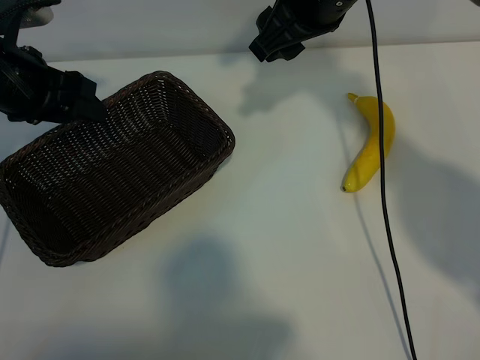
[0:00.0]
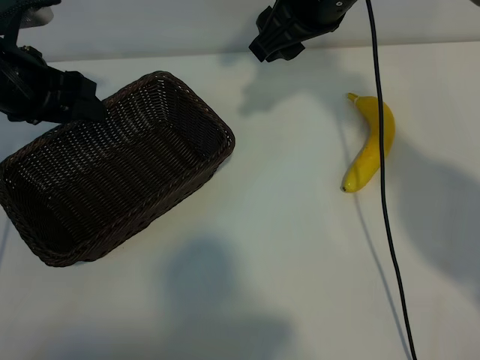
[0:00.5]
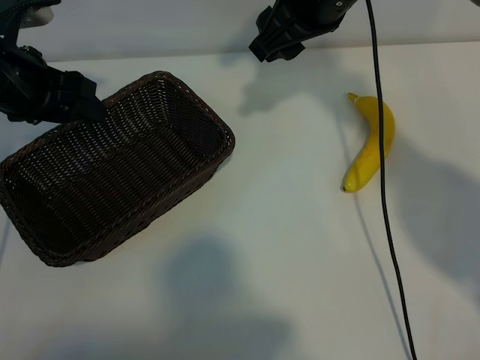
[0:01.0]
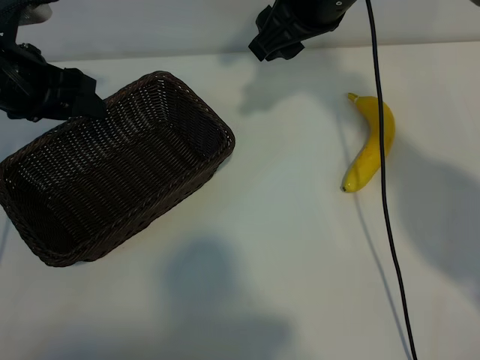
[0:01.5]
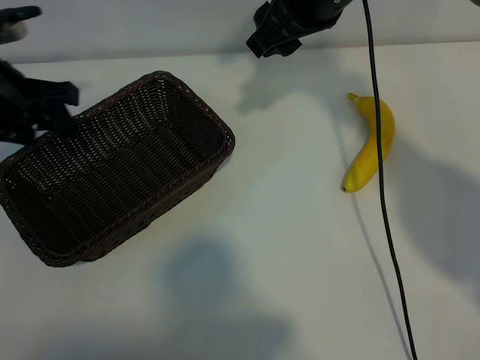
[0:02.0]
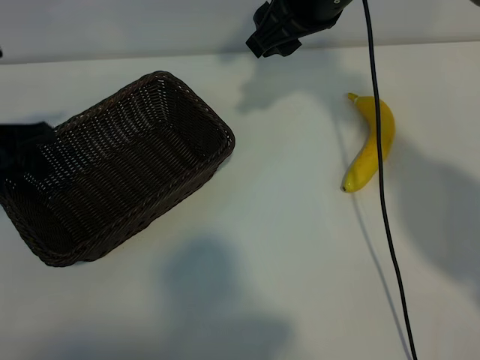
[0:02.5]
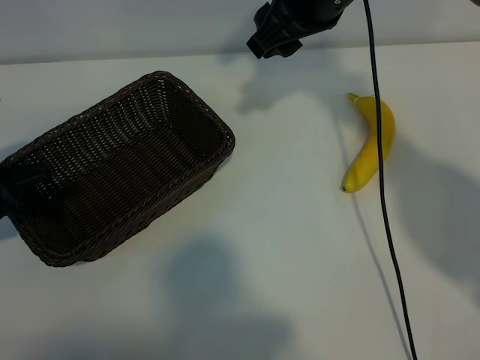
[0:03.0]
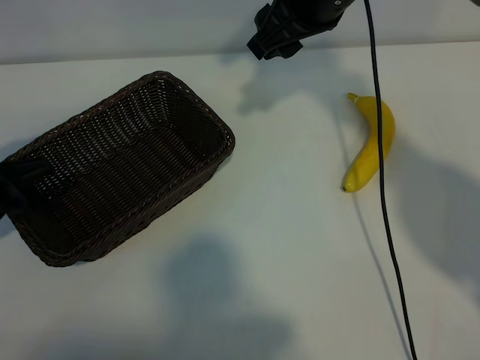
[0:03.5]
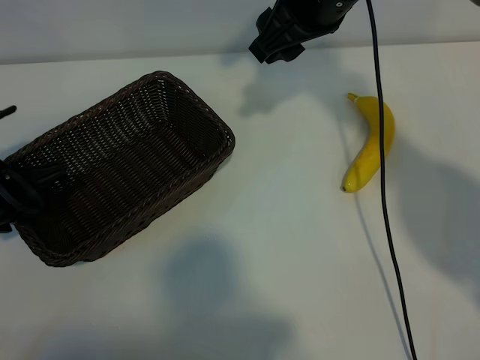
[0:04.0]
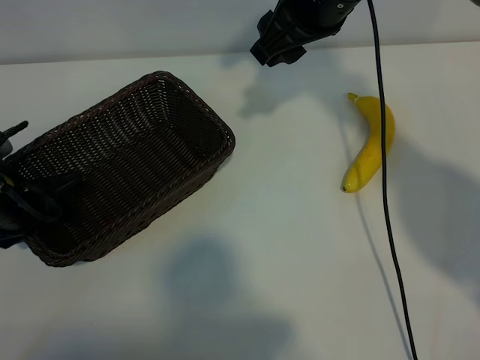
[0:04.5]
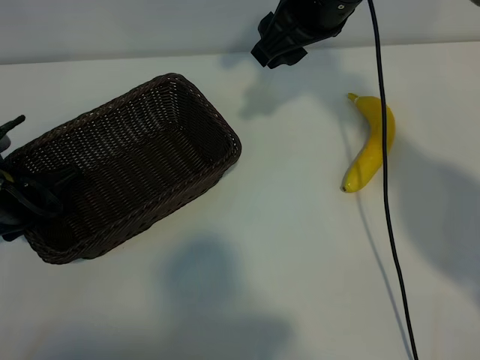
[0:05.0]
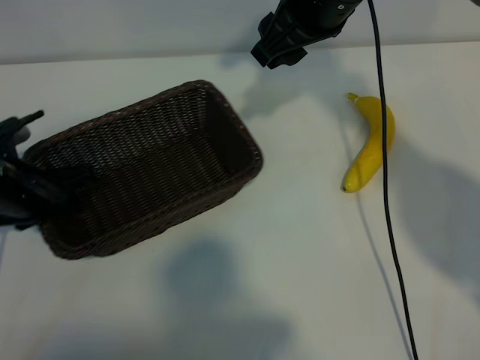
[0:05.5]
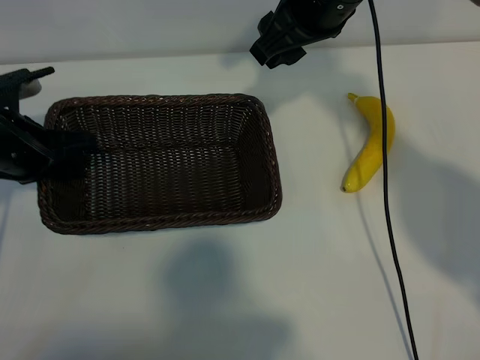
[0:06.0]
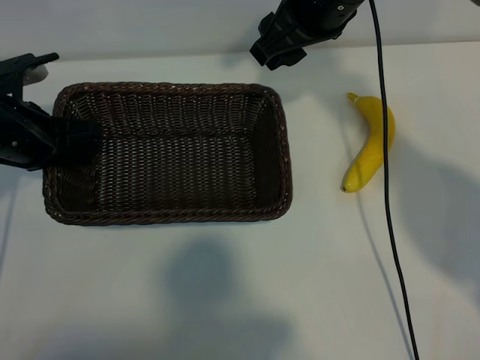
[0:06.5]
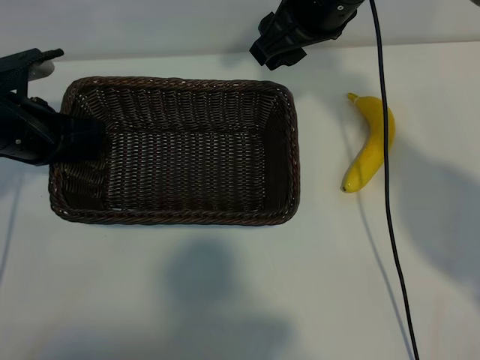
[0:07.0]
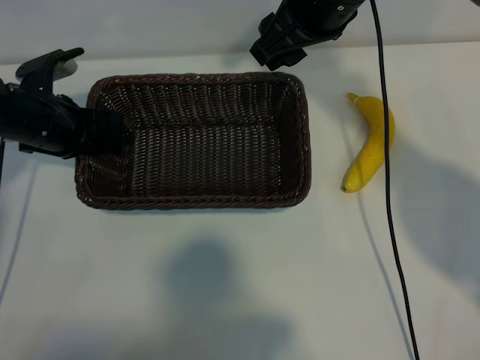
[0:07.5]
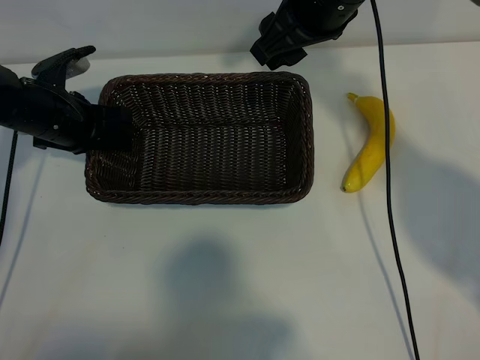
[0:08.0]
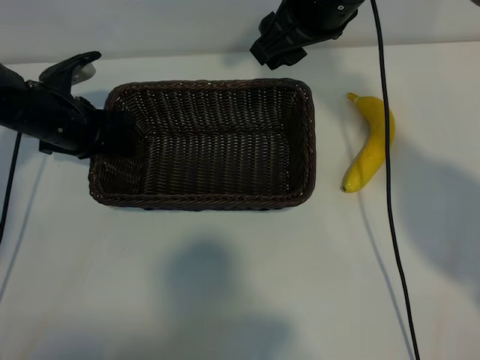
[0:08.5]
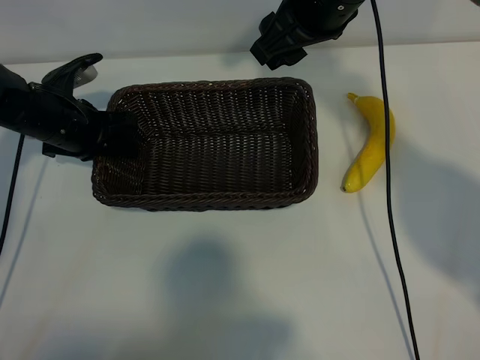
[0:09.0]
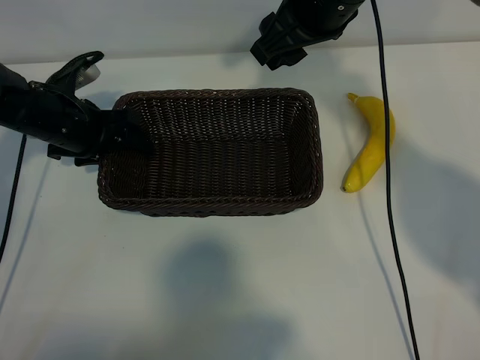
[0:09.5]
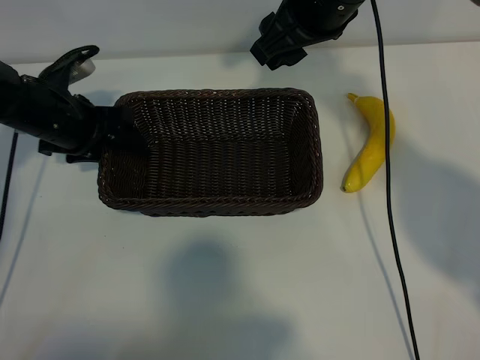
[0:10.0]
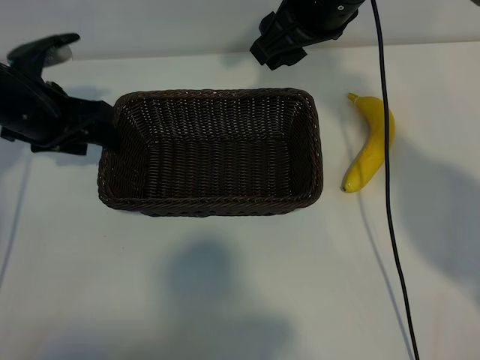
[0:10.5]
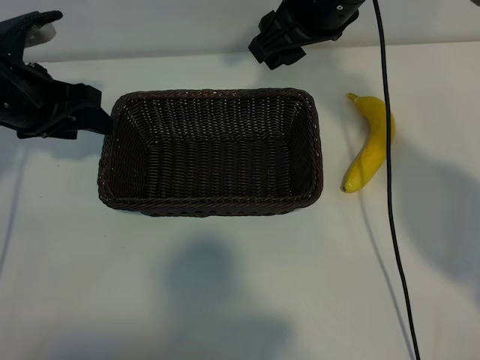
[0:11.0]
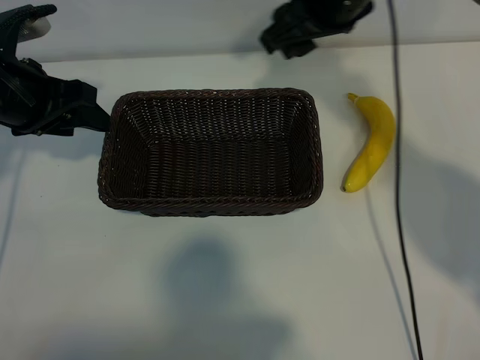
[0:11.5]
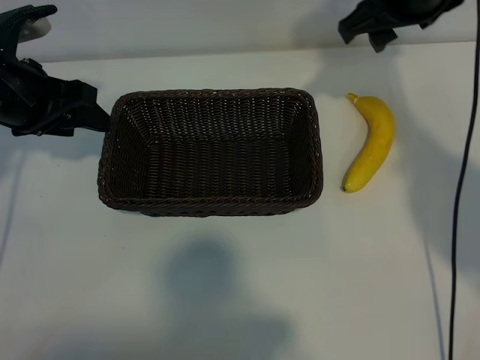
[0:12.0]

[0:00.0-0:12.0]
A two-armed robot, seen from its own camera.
Task of the whole recording: pick up the banana and put it into the basket.
Step, 0:01.5 to 0:05.5: Grasp the basket with the left gripper.
Step, 0:06.0 to 0:10.0: Place the basket in the center of the table with the left gripper.

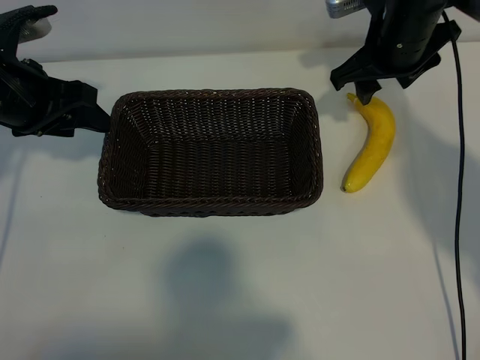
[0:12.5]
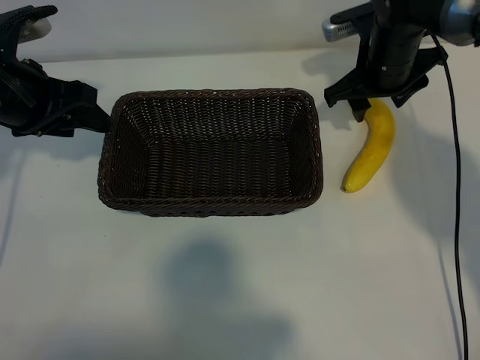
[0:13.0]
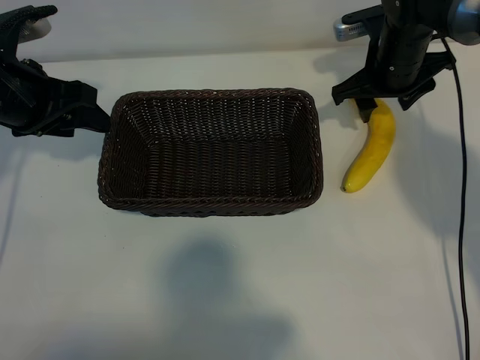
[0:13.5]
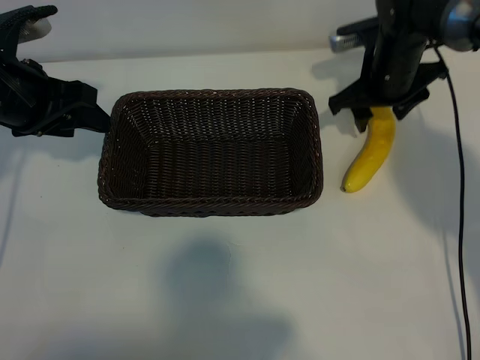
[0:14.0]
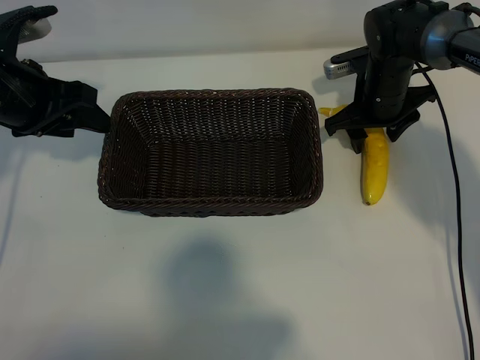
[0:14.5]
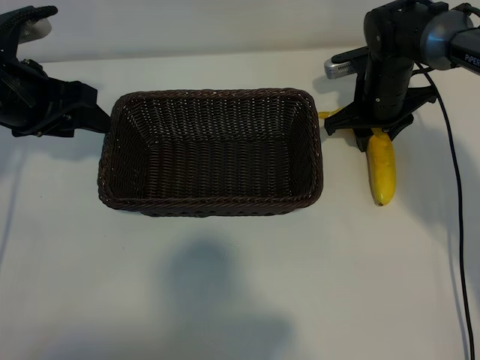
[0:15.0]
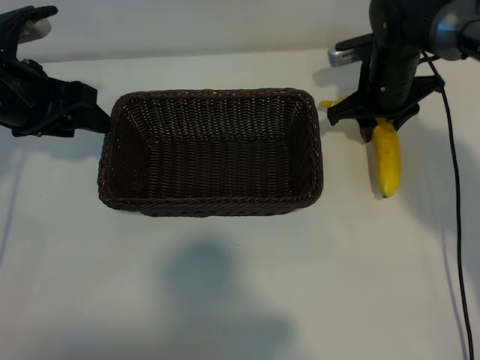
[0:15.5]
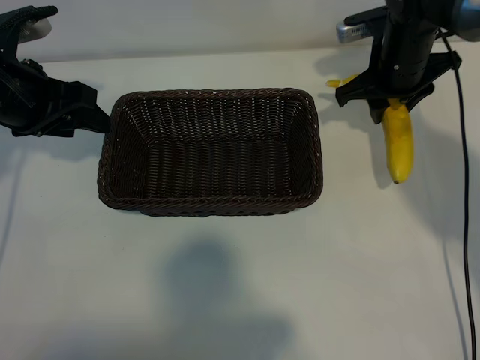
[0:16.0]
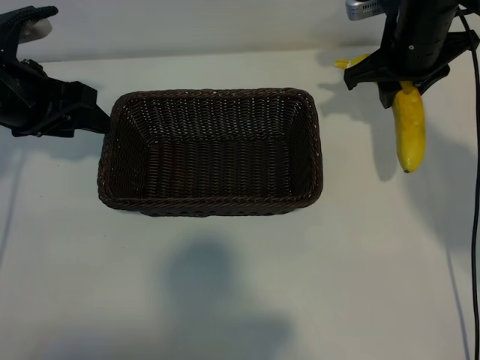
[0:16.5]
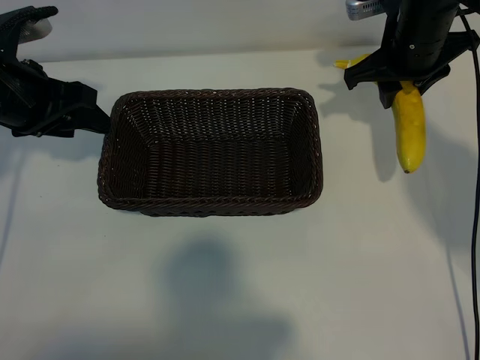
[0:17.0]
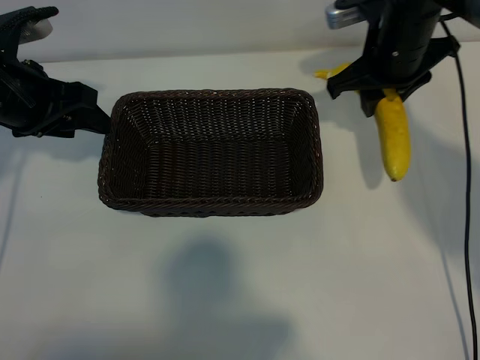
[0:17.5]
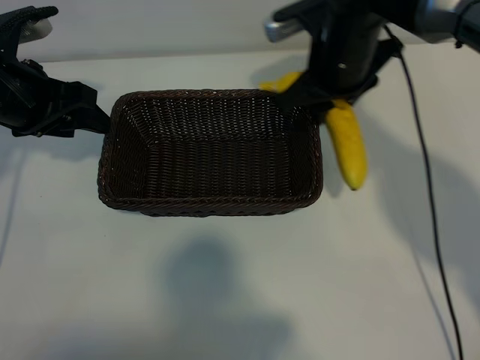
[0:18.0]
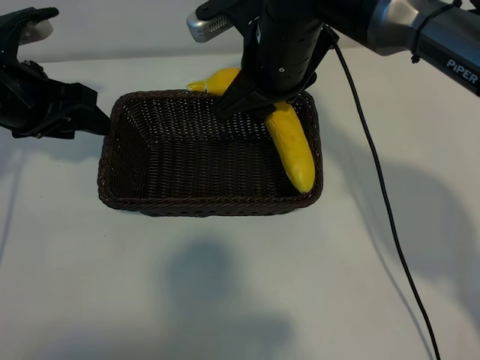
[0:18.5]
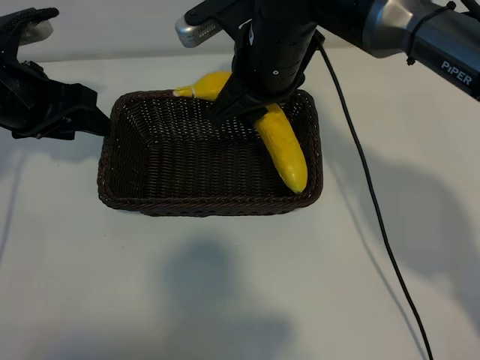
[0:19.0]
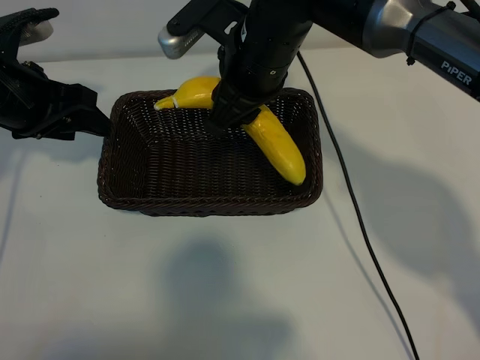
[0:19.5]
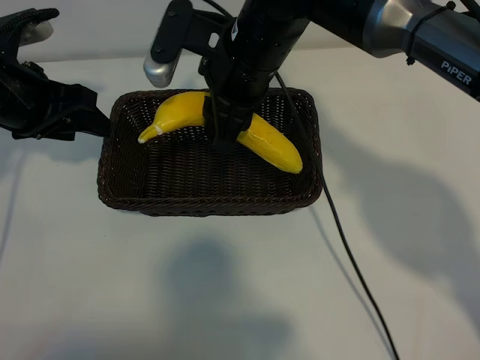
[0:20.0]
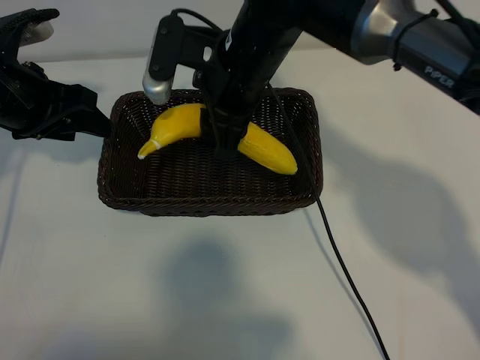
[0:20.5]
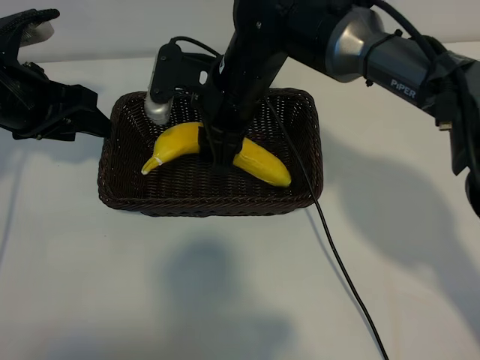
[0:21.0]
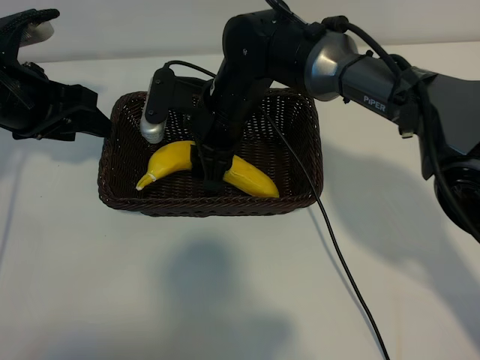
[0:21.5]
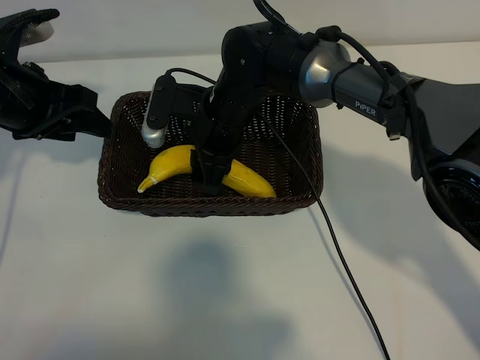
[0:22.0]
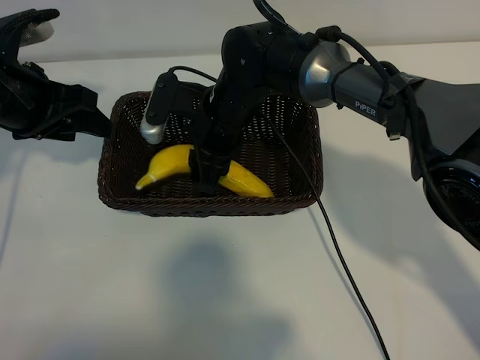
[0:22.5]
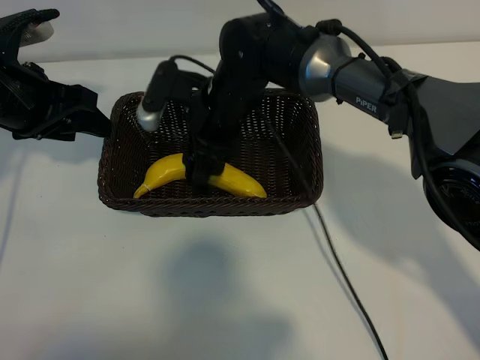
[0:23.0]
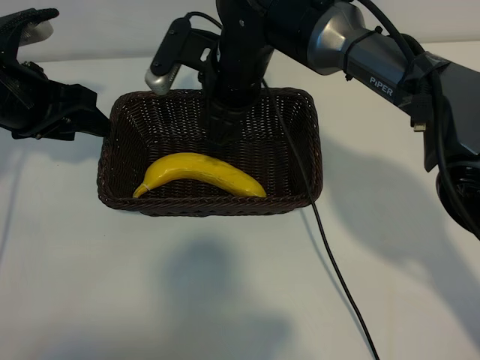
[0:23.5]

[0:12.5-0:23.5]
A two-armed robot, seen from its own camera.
Task of the whole recording: pick up the banana and put it into the basket.
Step, 0:12.5 to 0:15.0: Grasp the banana with right gripper.
Step, 0:15.5 to 0:23.0: Place the banana in the basket with right gripper.
